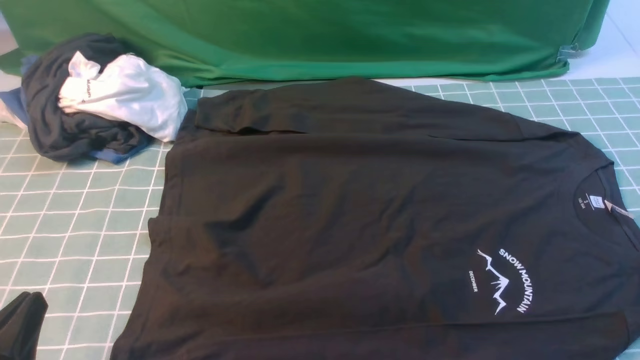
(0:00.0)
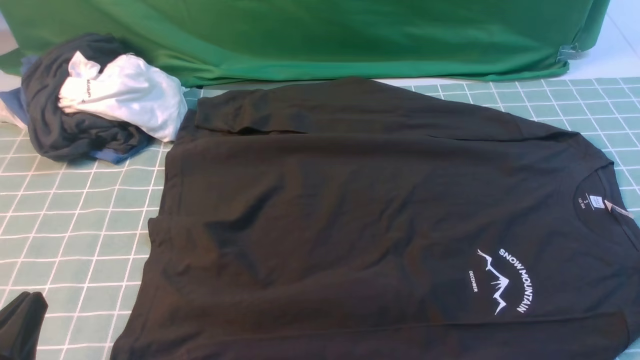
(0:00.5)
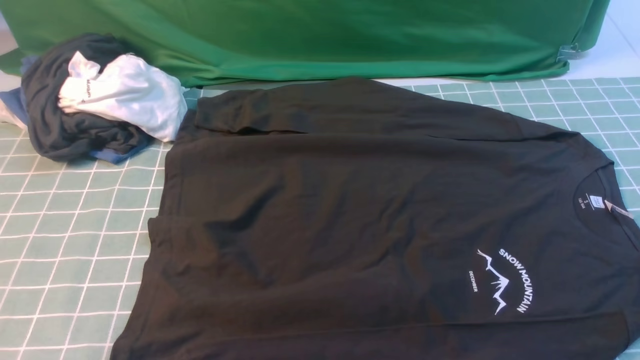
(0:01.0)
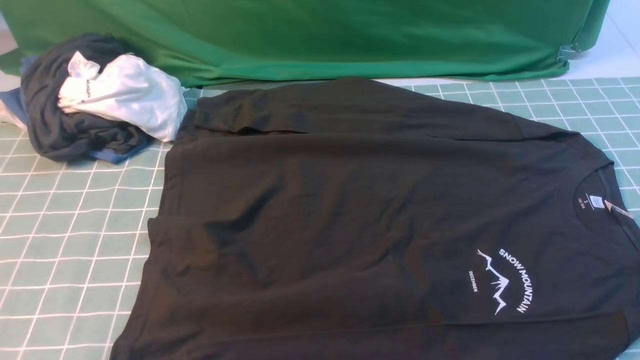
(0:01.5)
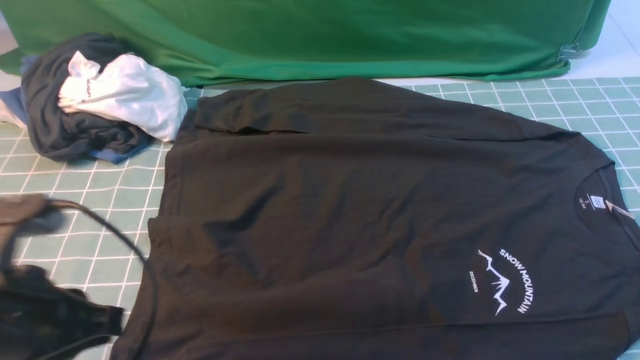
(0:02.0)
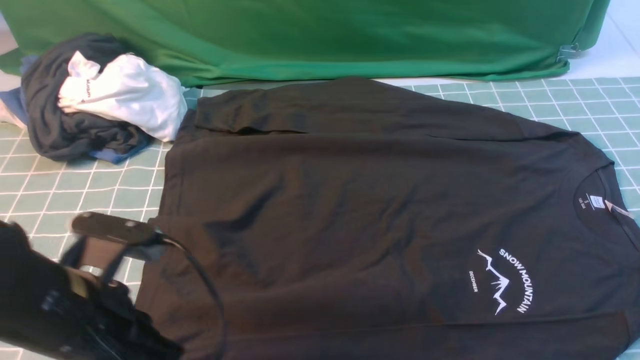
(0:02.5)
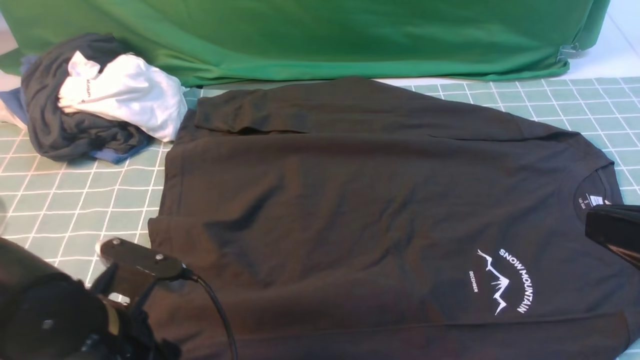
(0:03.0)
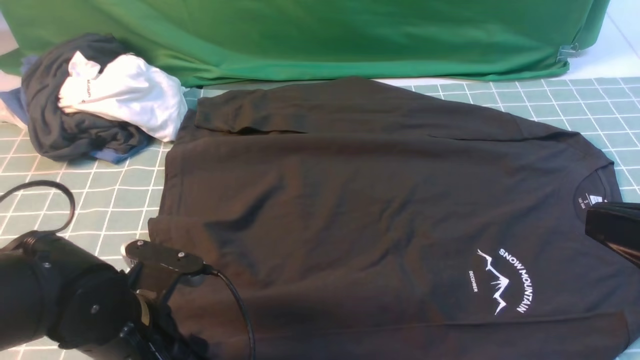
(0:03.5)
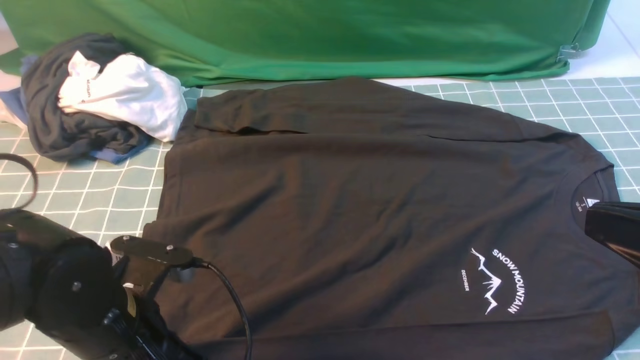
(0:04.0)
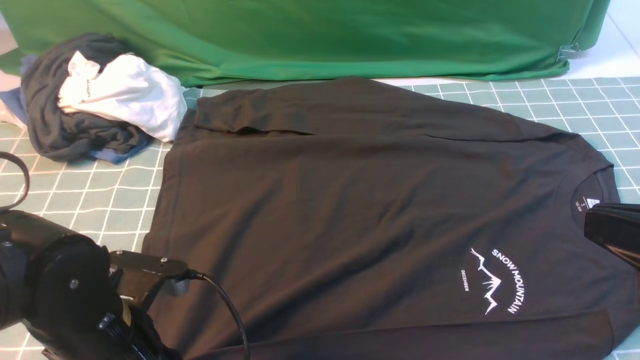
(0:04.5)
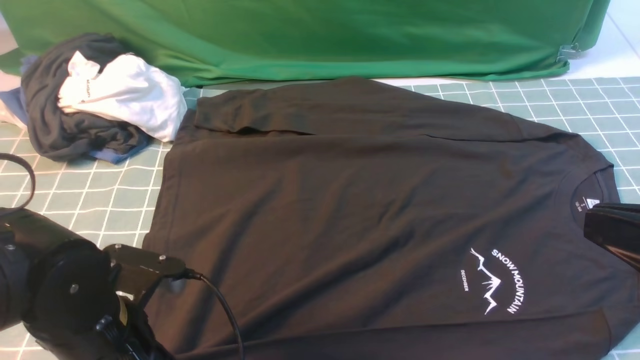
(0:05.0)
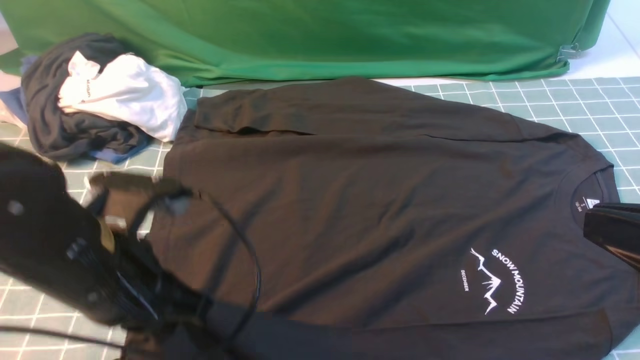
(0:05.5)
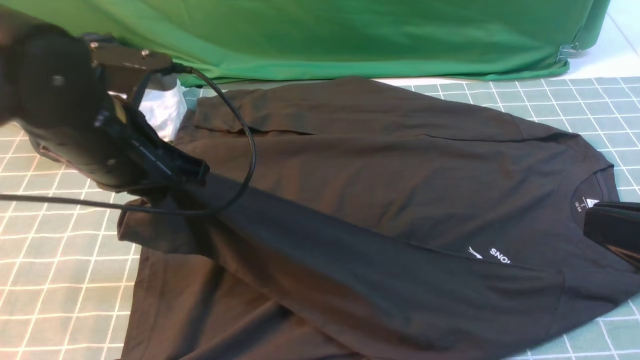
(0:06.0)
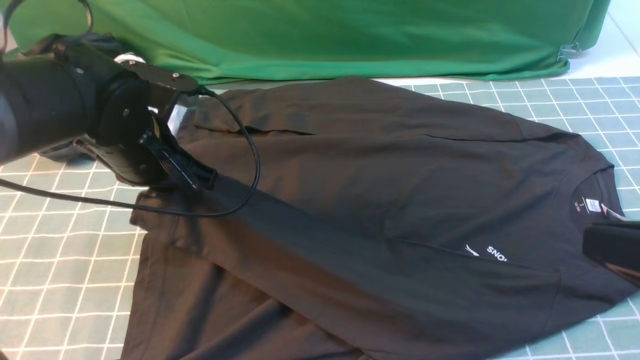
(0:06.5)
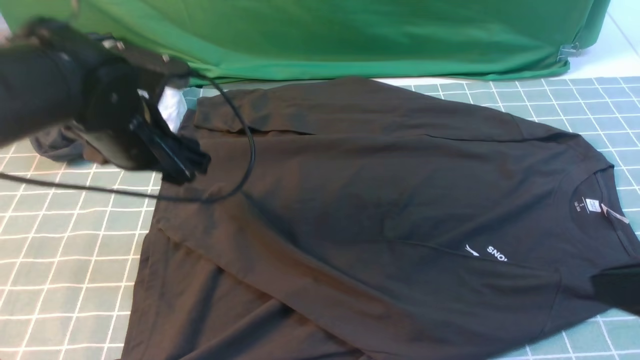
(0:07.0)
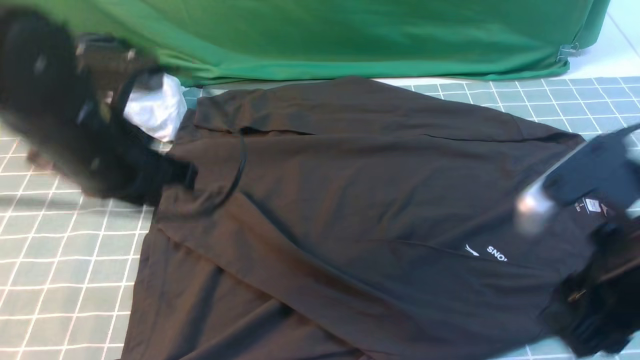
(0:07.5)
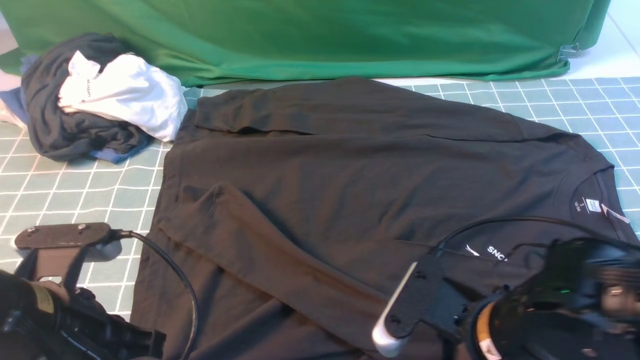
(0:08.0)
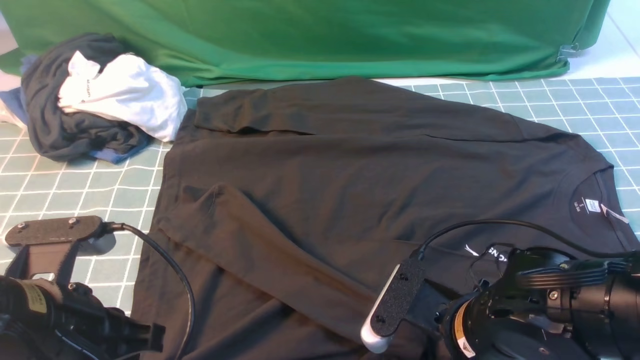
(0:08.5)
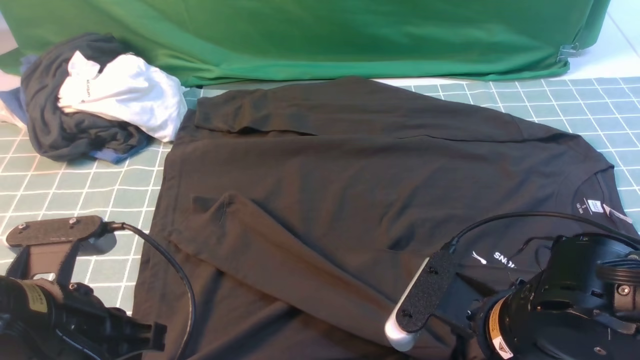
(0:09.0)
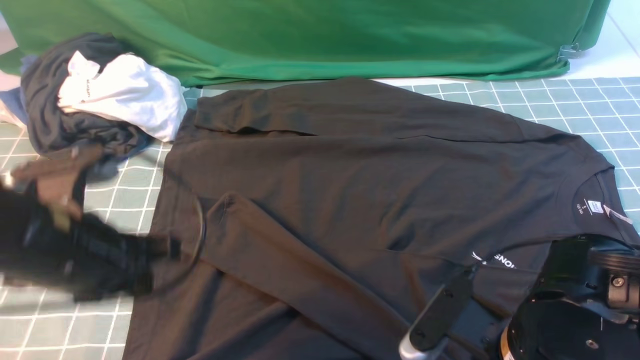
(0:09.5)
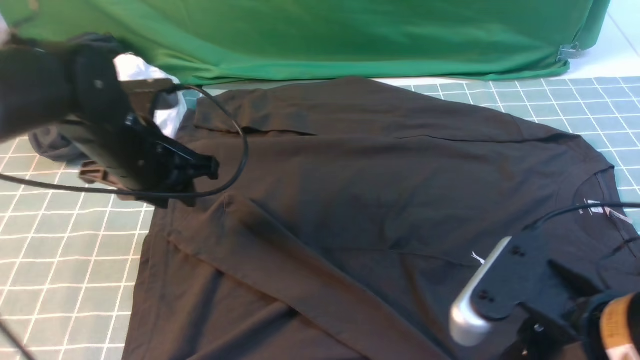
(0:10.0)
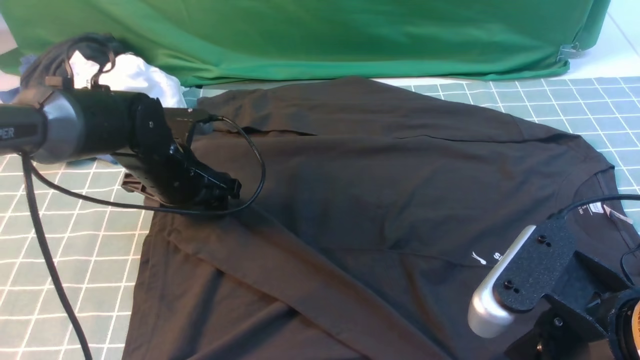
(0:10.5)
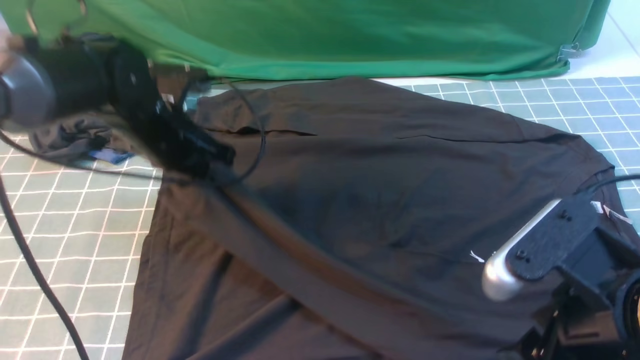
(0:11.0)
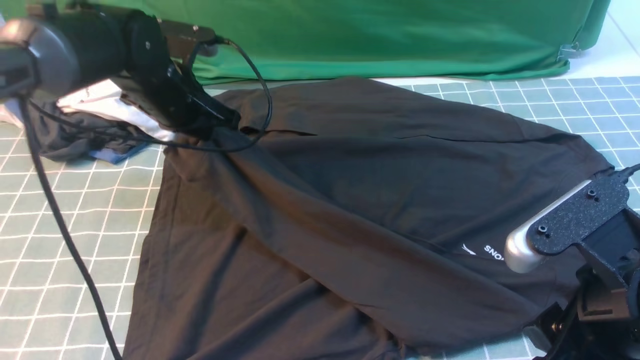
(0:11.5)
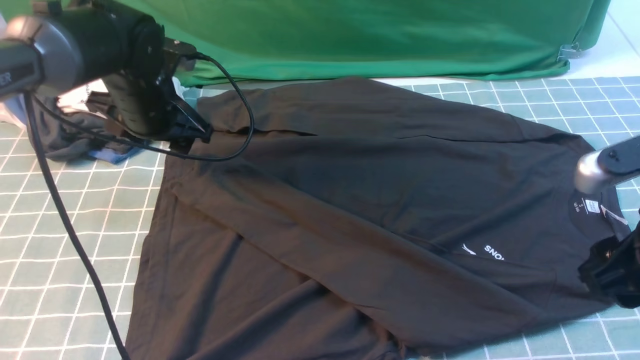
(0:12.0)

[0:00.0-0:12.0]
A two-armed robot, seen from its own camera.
Step, 0:00.0 to 0:05.0: use the left arm to clamp the cuff closest to it.
Step, 0:05.5 to 0:06.5: use the left arm to drag and place the cuff at the centered position on the left edge of the fabric.
0:00.0 to 0:02.0: The left gripper is displaced forward and upward by some 10 cm.
0:02.0 to 0:04.0: The right gripper is displaced to the left, upward and forward by approximately 10 cm. The left gripper heads downward and to the right, covering approximately 10 cm, and opens, then closes once more.
0:04.0 to 0:06.0: The left gripper heads forward and upward, covering roughly 15 cm, and opens and closes again.
0:06.0 to 0:08.0: The left gripper is displaced backward by roughly 15 cm, and opens and closes again. Meanwhile the right gripper travels downward and to the left by approximately 20 cm, and opens up.
0:08.0 to 0:10.0: The left gripper travels forward by some 20 cm, and opens up; the right gripper goes roughly 10 cm upward, and closes and opens again.
0:10.0 to 0:12.0: The right gripper is displaced to the right and forward by some 10 cm. The left gripper is displaced forward by about 5 cm, and closes, then opens again.

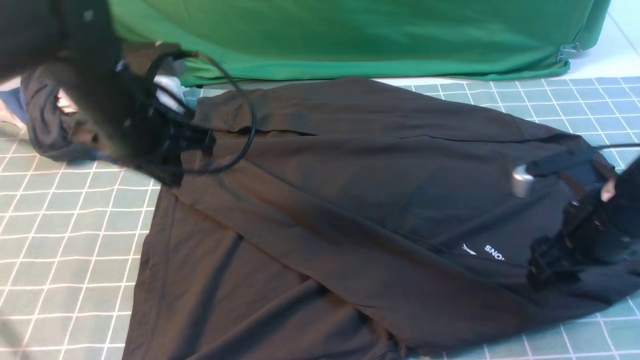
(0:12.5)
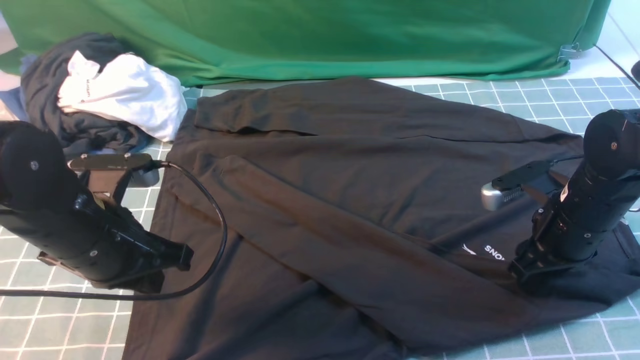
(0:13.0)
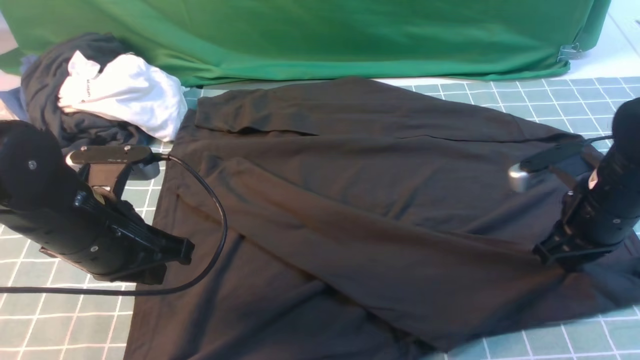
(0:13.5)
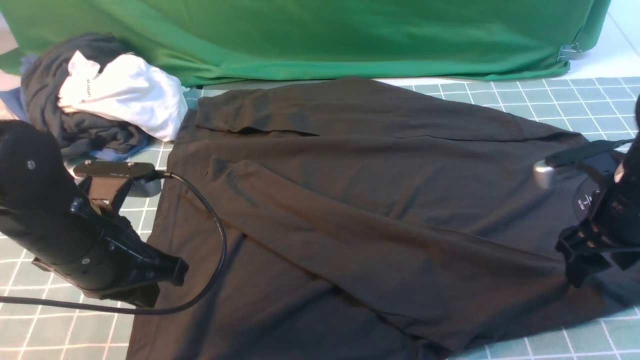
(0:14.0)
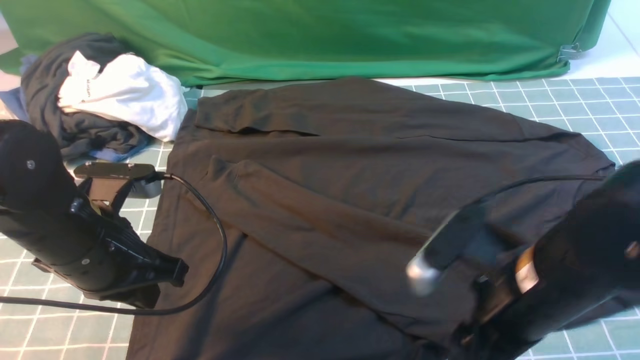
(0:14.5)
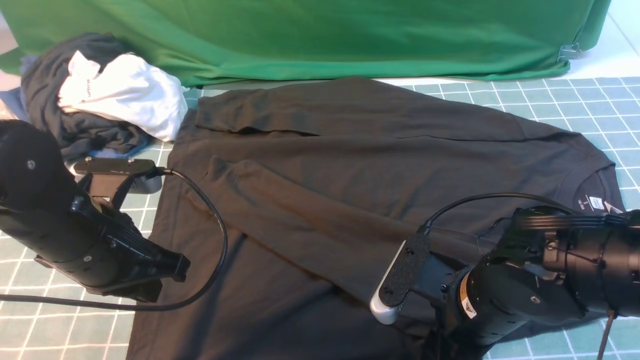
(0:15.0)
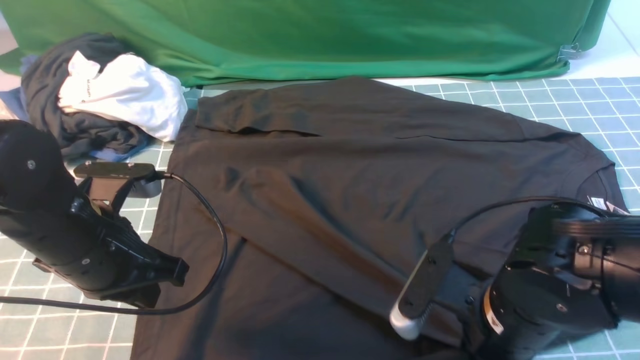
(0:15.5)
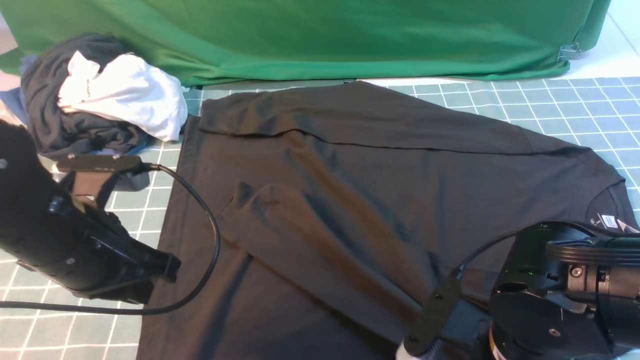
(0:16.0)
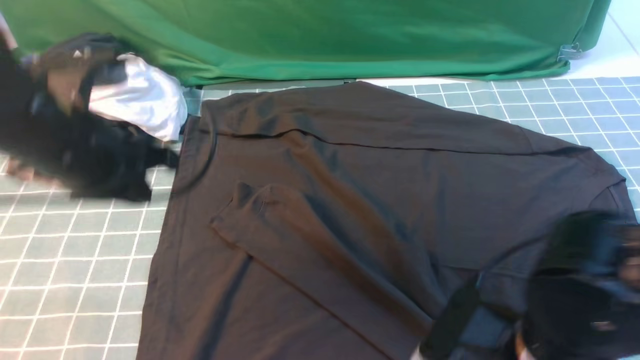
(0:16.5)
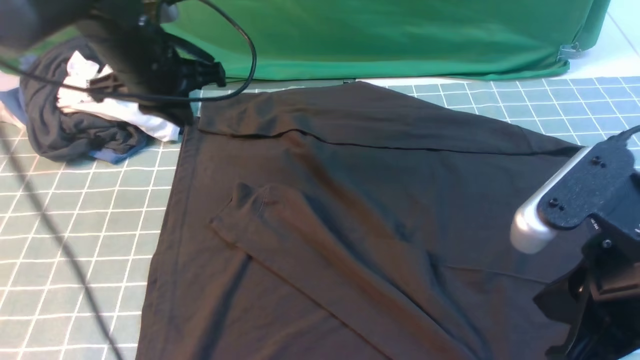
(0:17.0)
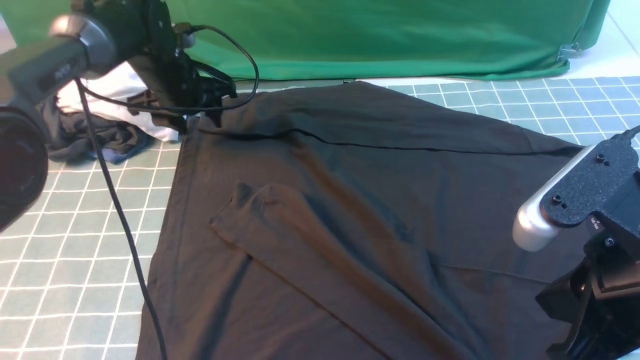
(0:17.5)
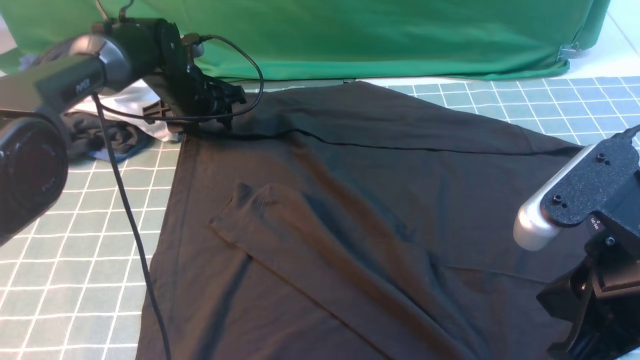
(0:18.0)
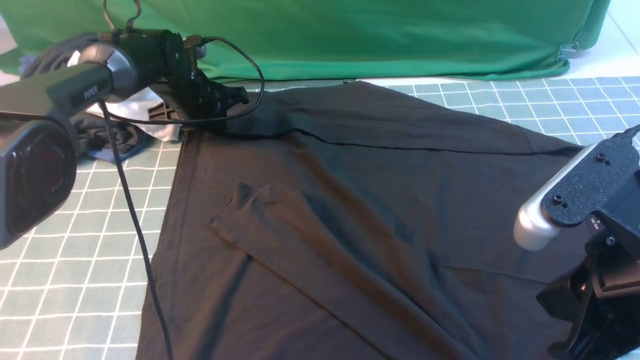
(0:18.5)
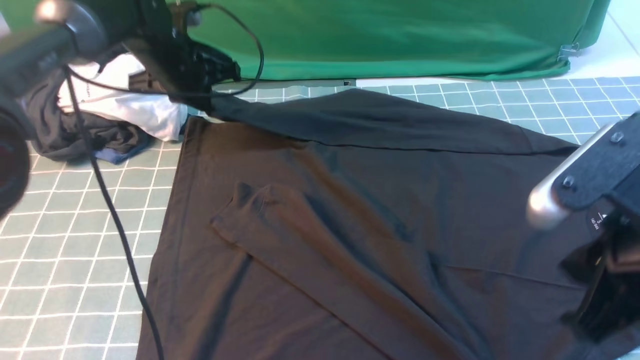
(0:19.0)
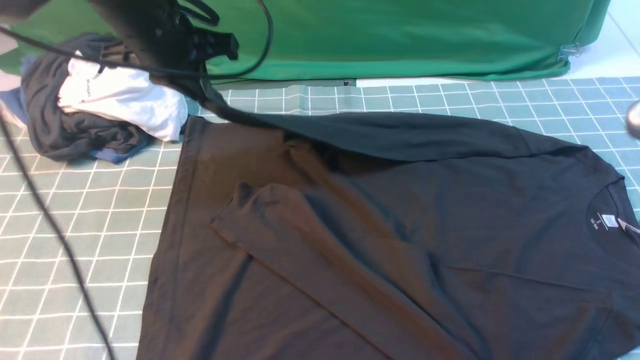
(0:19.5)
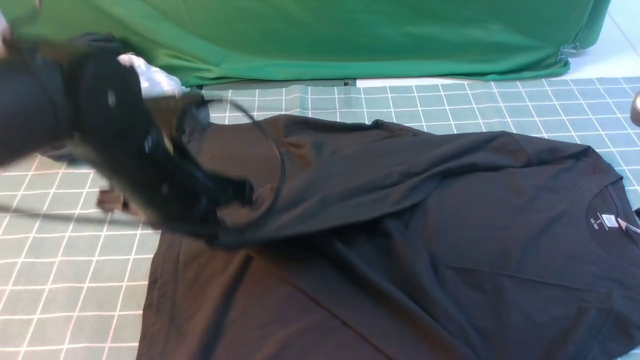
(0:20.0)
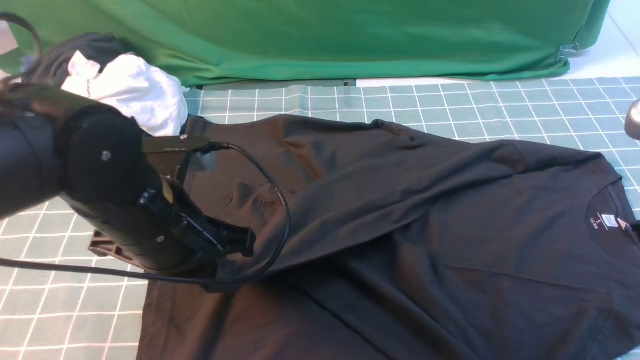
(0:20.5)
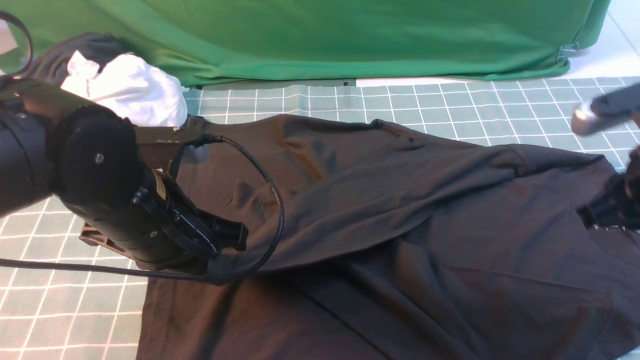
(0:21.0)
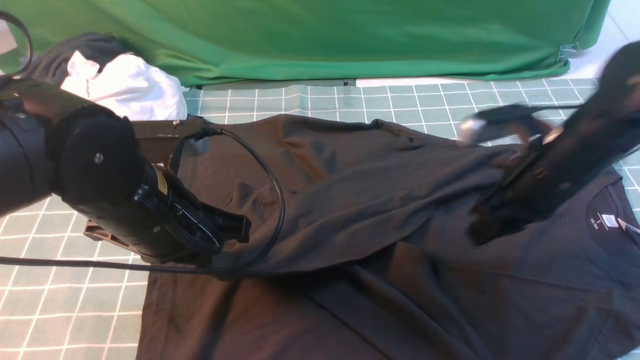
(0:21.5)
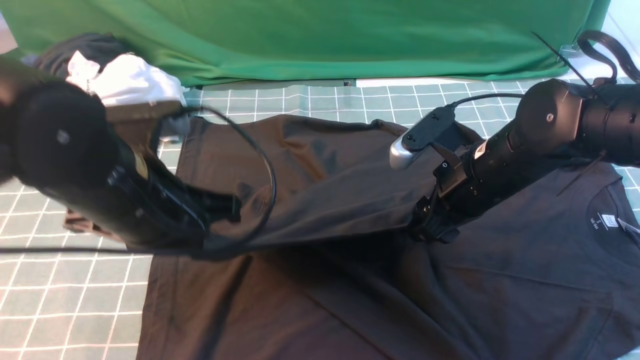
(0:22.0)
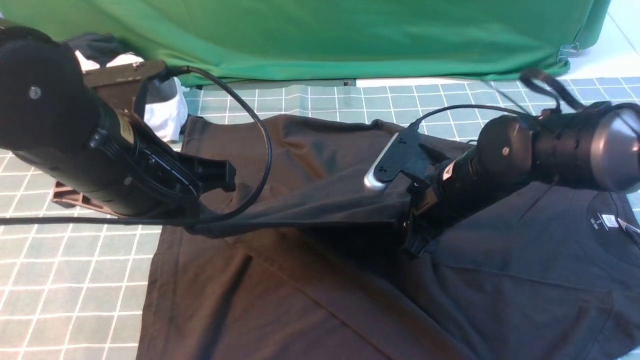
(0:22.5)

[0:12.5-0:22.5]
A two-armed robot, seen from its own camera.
Step, 0:12.5 to 0:18.5: use the left arm to clamp the cuff farthest from it.
0:12.5 to 0:14.5: The right gripper travels to the left and backward by some 10 cm, and closes and opens again, while the left gripper travels backward by approximately 10 cm.
0:14.5 to 0:16.5: The left gripper heads upward, covering some 10 cm; the right gripper moves backward, some 5 cm, and closes.
0:16.5 to 0:18.5: The right gripper goes approximately 10 cm upward and to the right, and closes, while the left gripper is displaced forward and downward by about 30 cm, and opens, then closes again.
0:18.5 to 0:20.5: The right gripper moves to the right and forward, roughly 10 cm, while the left gripper heads backward, covering some 30 cm.
0:20.5 to 0:22.5: The left gripper goes some 5 cm upward. The right gripper goes some 25 cm downward, to the left and forward, and opens up.
